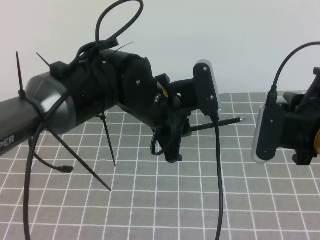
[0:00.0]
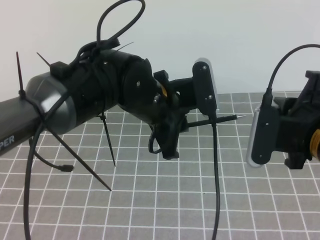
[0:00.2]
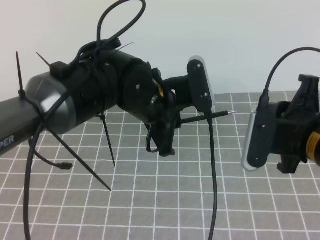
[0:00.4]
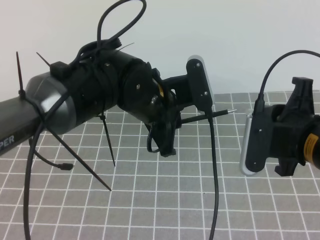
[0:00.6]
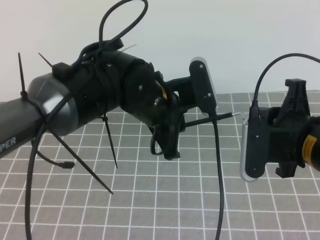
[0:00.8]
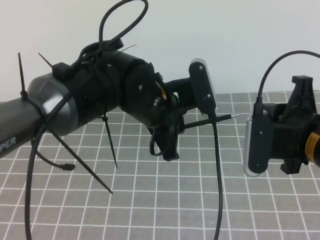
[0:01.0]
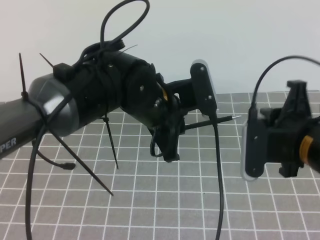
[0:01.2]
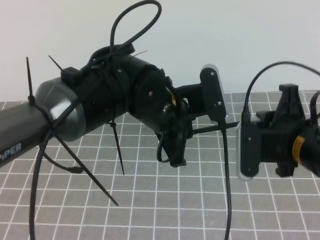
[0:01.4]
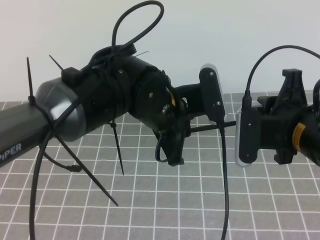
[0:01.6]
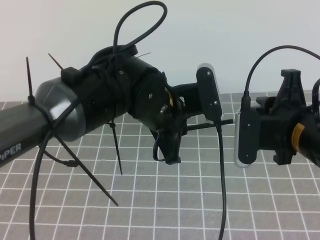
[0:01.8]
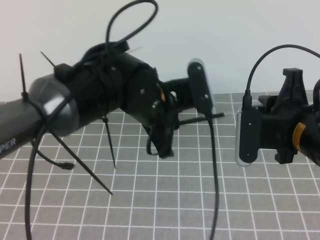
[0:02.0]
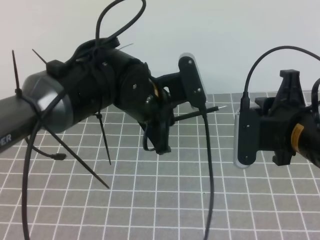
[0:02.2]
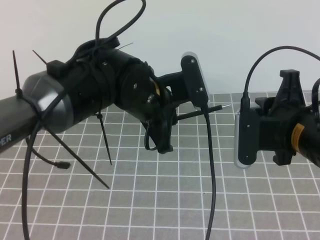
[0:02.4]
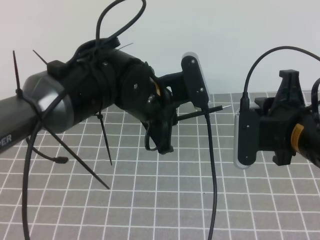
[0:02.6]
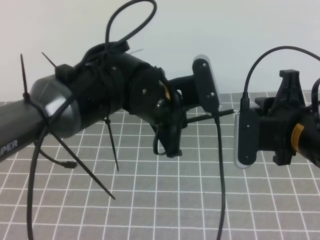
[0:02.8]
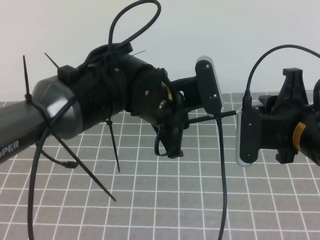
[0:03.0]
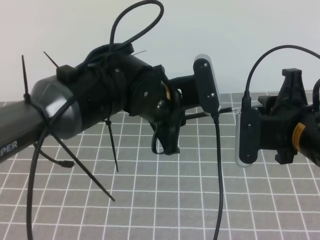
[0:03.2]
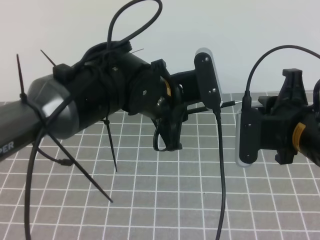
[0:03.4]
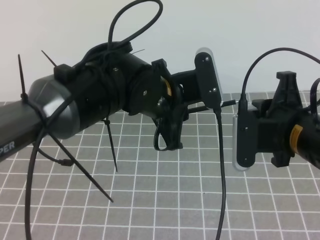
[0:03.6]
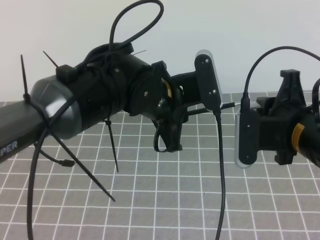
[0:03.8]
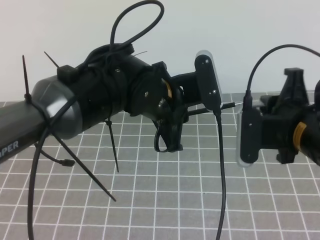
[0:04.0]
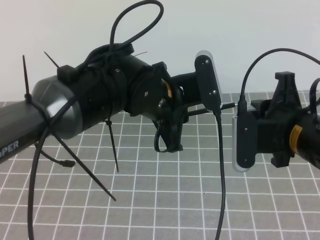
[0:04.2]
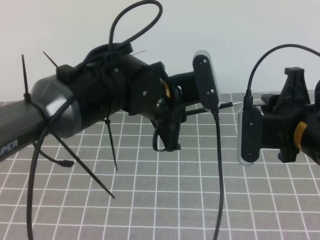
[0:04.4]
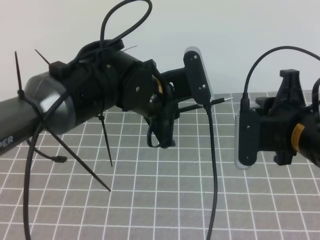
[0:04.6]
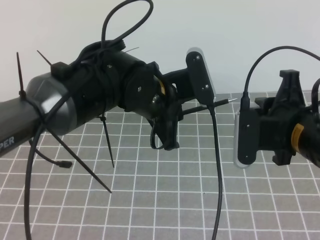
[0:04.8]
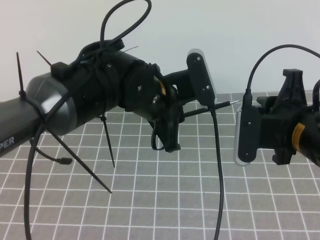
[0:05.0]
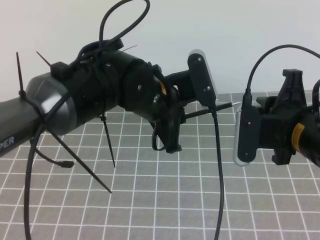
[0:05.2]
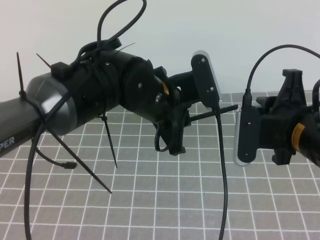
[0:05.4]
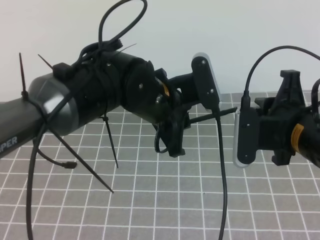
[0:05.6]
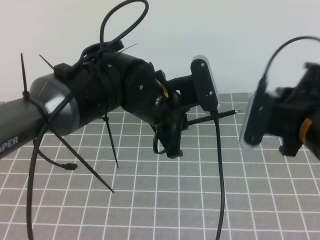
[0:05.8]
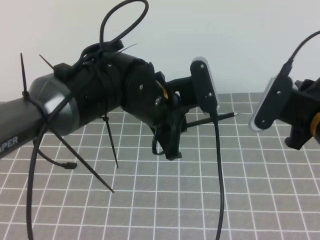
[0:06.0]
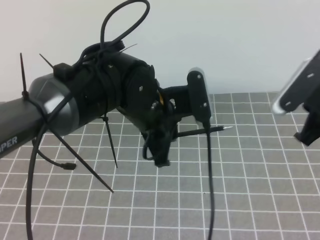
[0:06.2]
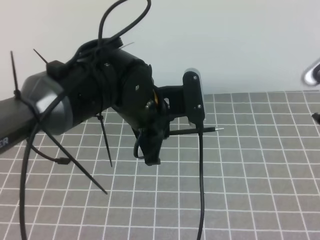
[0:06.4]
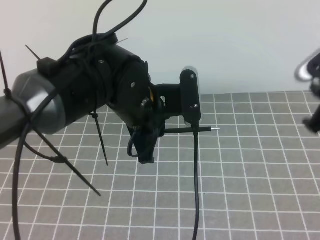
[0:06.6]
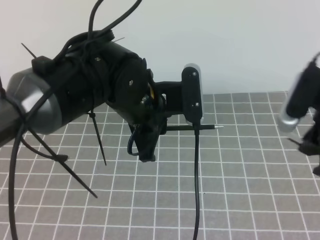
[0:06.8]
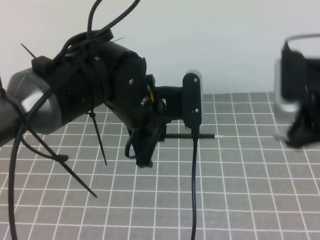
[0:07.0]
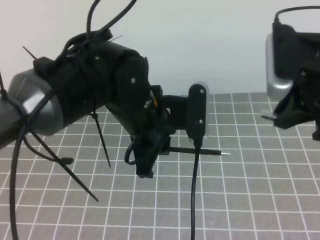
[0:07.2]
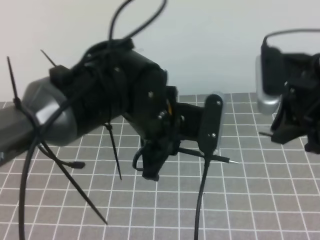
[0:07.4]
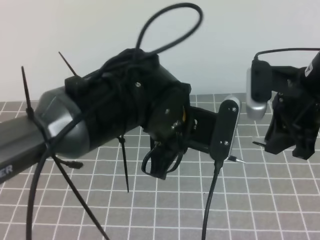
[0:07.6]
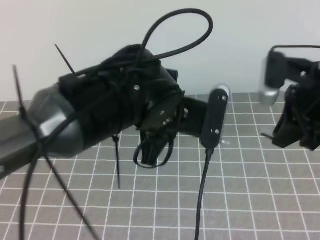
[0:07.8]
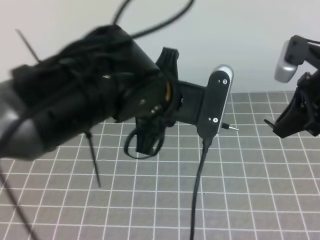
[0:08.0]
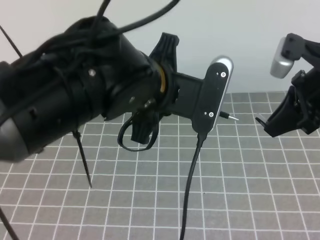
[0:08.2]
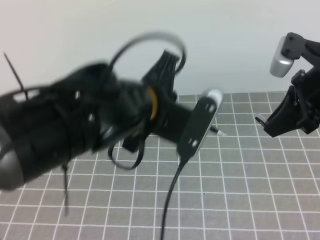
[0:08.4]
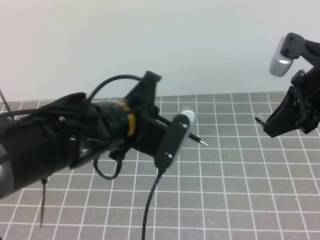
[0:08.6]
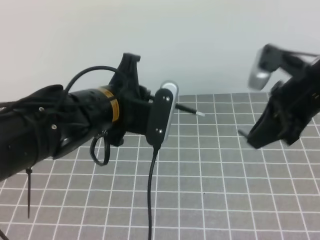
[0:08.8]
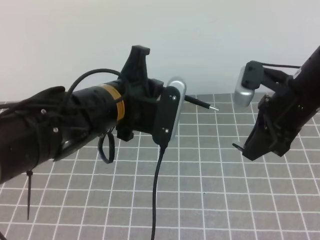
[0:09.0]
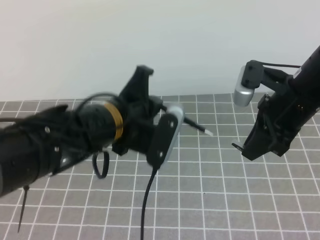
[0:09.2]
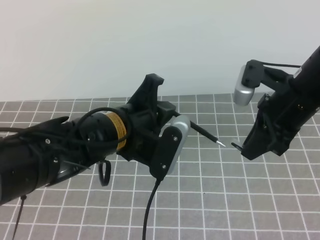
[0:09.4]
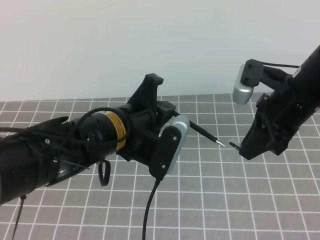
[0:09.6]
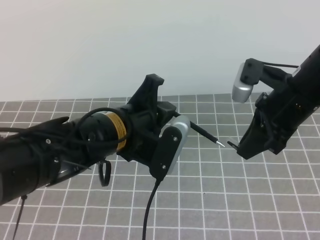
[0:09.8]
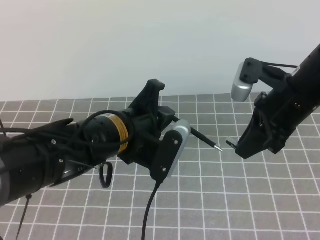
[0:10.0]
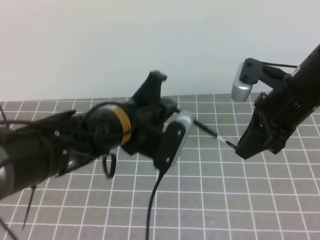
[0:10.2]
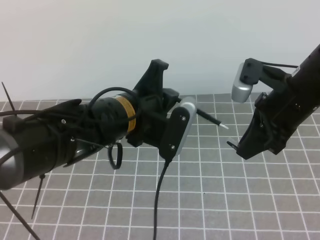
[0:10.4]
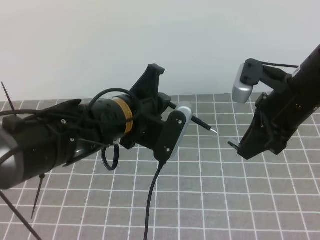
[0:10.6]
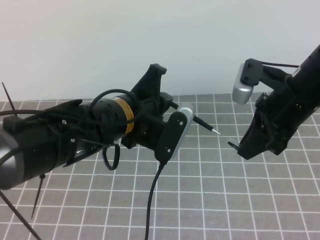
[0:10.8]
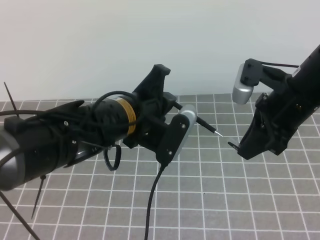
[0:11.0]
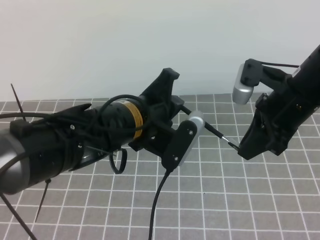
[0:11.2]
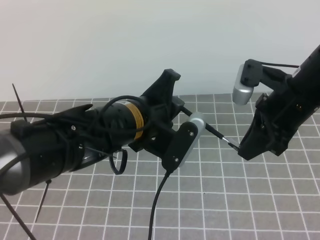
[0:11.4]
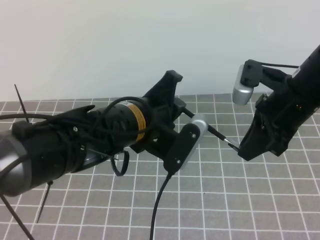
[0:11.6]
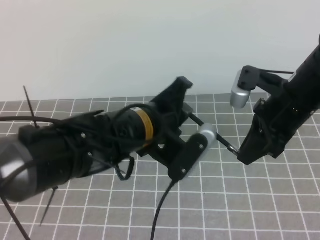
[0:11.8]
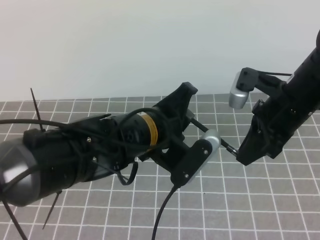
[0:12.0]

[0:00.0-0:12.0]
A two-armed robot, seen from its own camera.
Task of the whole recording: on the grey tablecloth, hold the pen cap in one hand and the pen in the other, then cover the pen cap.
Step, 0:00.0 to 0:05.8: Insert the pen cap with the left hand.
Step, 0:06.2 to 0:09.8: Place the pen down with the right hand.
0:01.6 to 0:03.0: The grippers move only a little.
0:03.0 to 0:04.4: Neither gripper changes place.
0:06.0 to 0:07.6: The right gripper changes place by some 5 cm.
0:07.6 to 0:09.0: The left gripper goes about 5 cm to the left.
0:09.0 to 0:10.4: The grippers stay close to where they were, moving slightly.

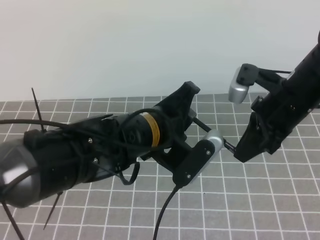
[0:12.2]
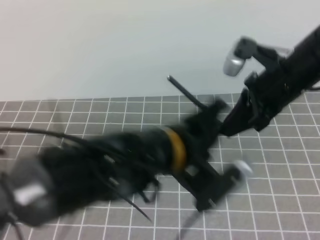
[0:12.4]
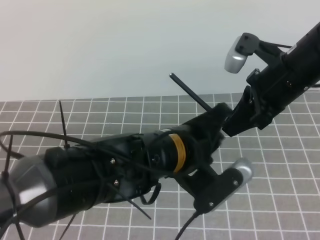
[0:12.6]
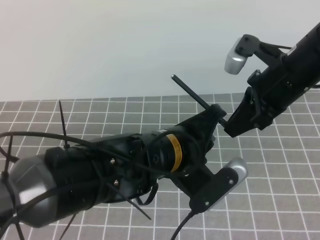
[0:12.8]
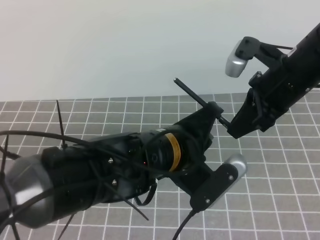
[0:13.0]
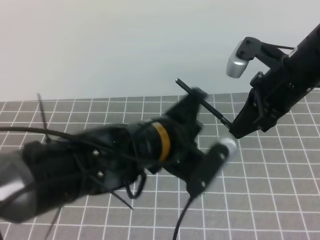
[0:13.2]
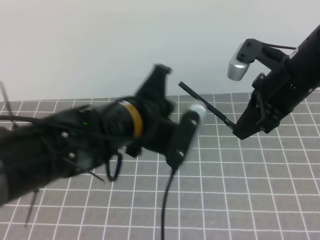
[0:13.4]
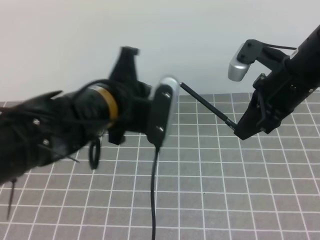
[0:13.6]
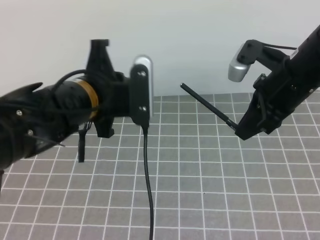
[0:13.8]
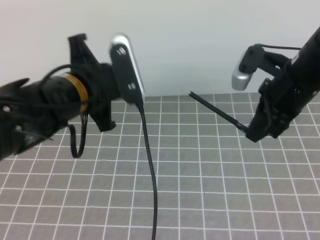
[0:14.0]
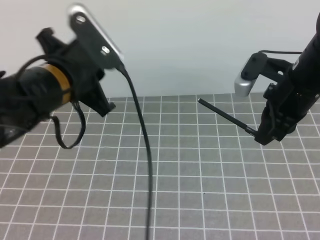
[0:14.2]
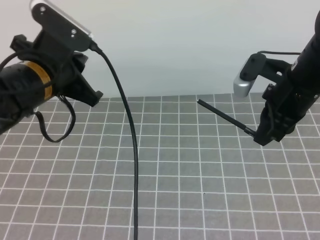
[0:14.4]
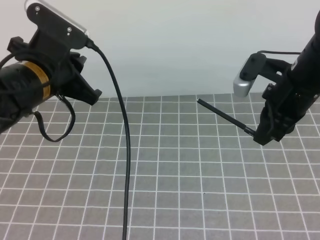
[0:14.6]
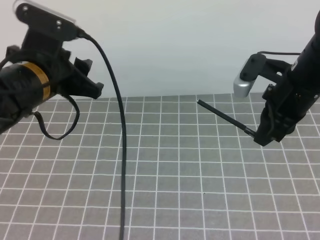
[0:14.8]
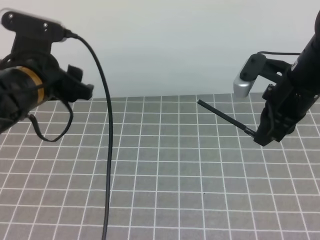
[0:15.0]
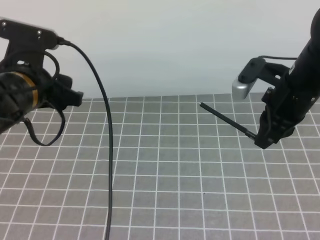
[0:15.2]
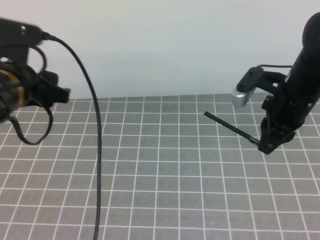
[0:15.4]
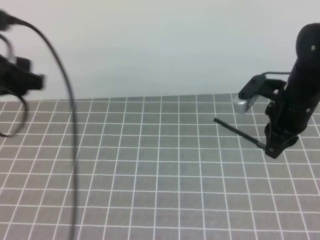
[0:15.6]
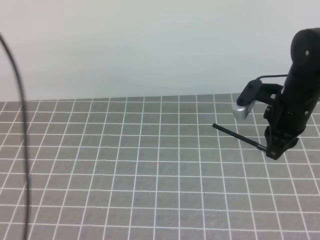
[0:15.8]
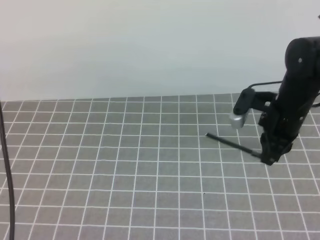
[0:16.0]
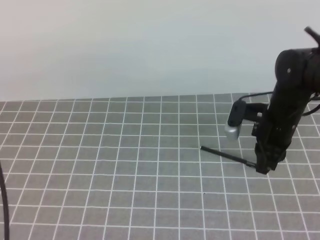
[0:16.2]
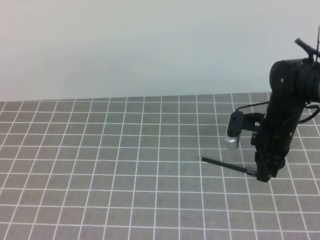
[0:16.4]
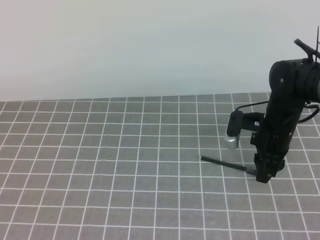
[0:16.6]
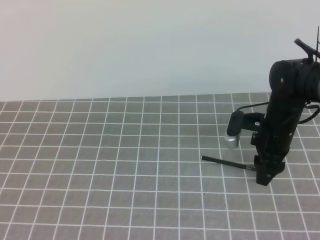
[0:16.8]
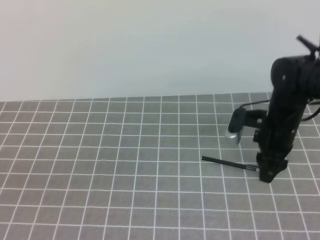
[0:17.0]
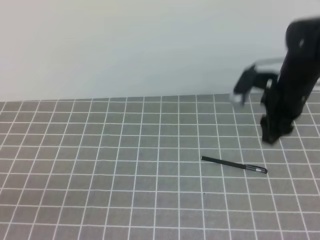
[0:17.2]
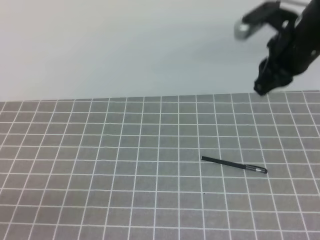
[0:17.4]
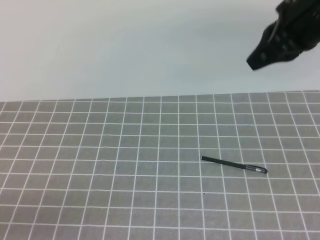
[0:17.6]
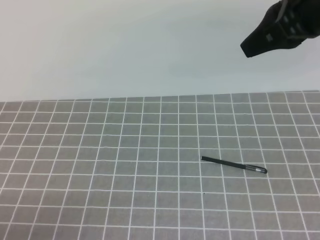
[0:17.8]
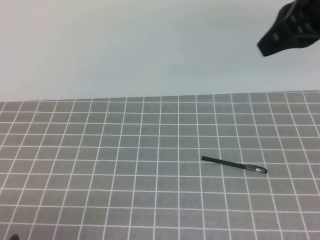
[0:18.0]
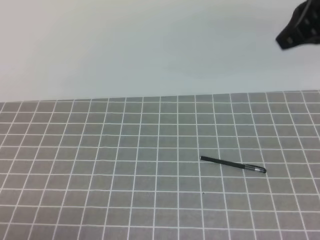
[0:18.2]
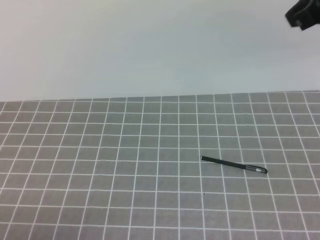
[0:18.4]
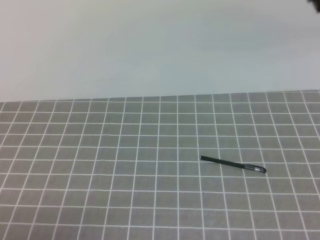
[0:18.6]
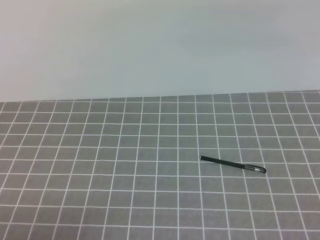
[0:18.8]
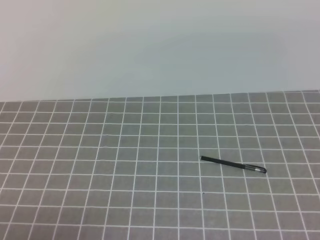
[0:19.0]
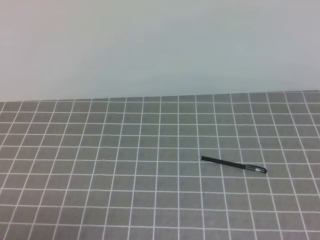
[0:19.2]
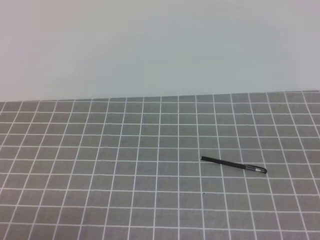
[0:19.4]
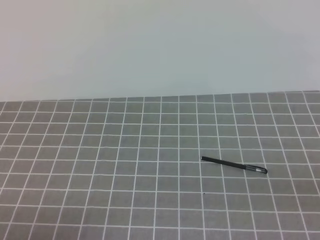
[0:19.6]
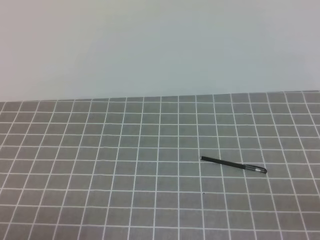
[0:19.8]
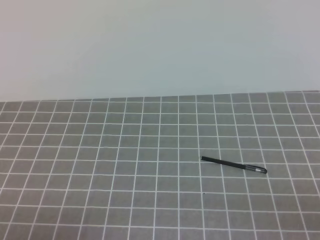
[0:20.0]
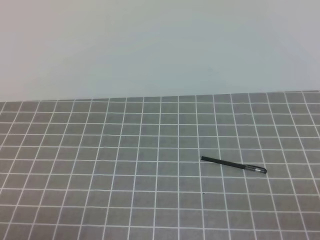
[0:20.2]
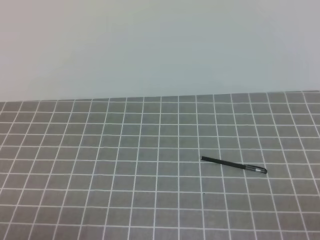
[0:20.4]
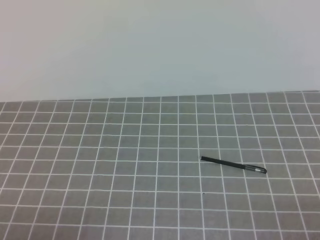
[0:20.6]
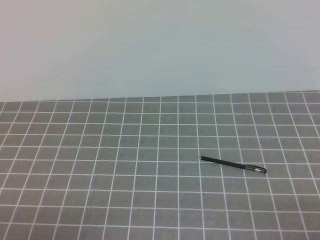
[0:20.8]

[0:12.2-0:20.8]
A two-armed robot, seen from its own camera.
Task of the whole recording: on the grey tablecloth, hold the pen cap in one hand and the pen in the other, then cover the pen cap.
0:12.2 to 0:13.6: The left gripper moves to the left, about 5 cm.
0:13.6 to 0:15.0: The left gripper goes roughly 10 cm to the left, and opens up.
0:15.0 to 0:16.6: The right gripper goes about 10 cm downward, and opens. The left gripper goes approximately 20 cm backward, to the left and upward.
0:16.6 to 0:18.0: The left gripper moves downward, some 25 cm; the right gripper travels upward by roughly 25 cm, and closes.
0:18.0 to 0:19.4: The right gripper moves backward, to the right and downward, about 30 cm.
